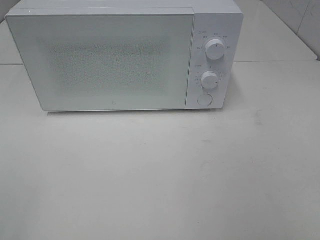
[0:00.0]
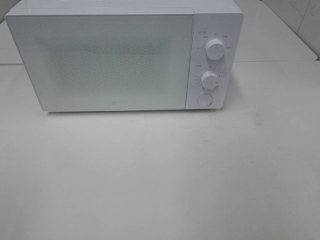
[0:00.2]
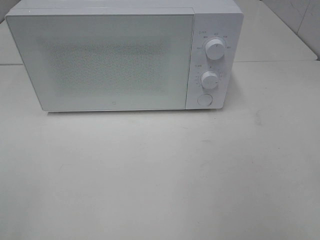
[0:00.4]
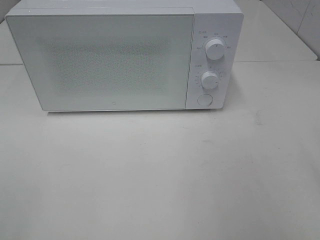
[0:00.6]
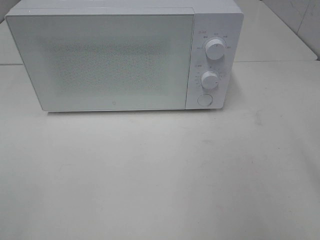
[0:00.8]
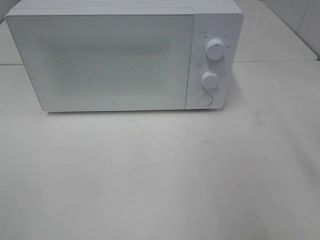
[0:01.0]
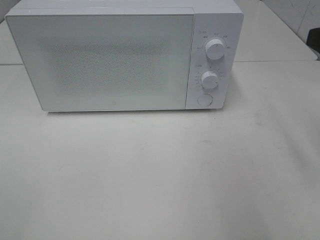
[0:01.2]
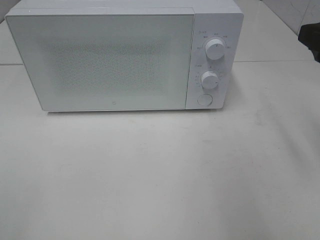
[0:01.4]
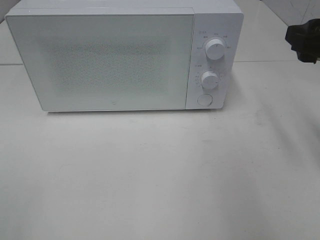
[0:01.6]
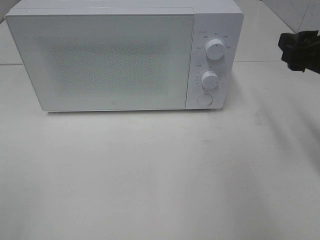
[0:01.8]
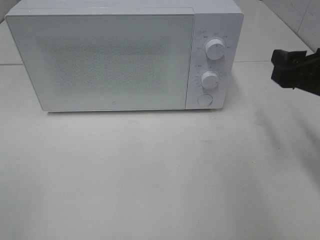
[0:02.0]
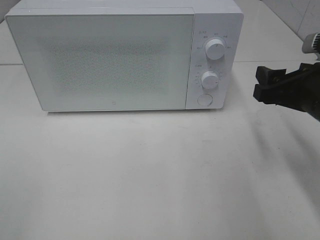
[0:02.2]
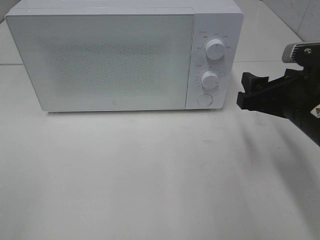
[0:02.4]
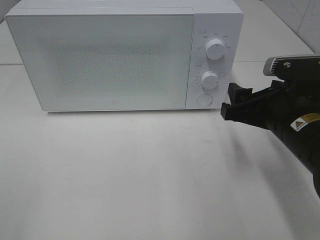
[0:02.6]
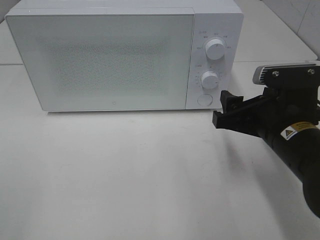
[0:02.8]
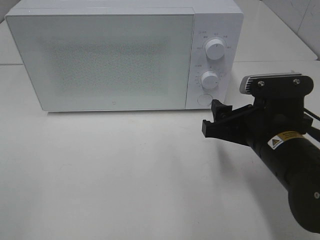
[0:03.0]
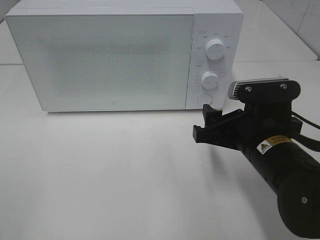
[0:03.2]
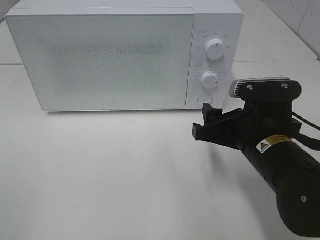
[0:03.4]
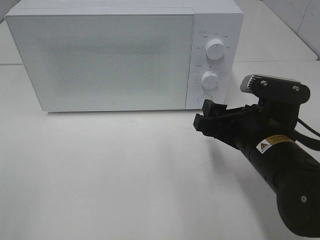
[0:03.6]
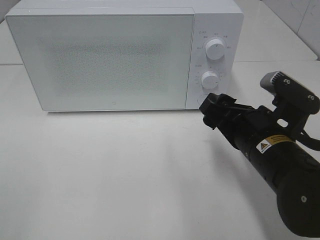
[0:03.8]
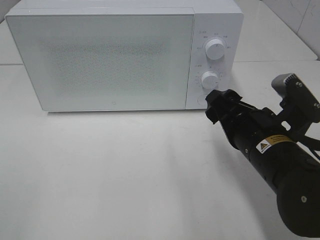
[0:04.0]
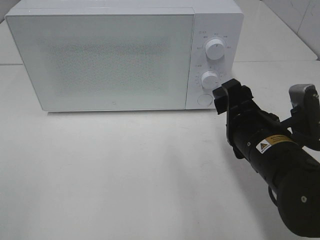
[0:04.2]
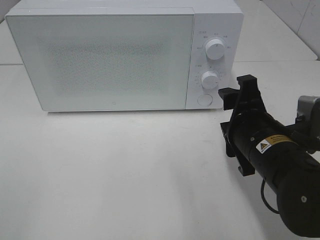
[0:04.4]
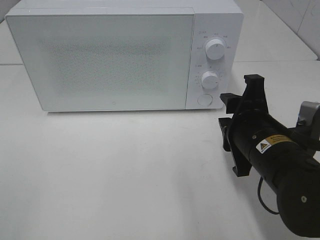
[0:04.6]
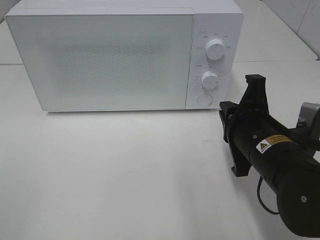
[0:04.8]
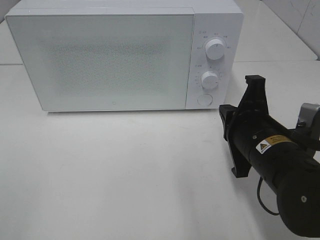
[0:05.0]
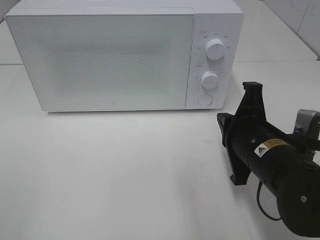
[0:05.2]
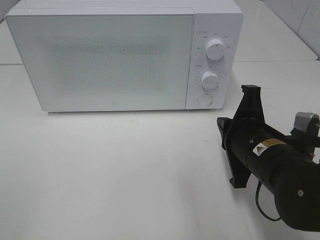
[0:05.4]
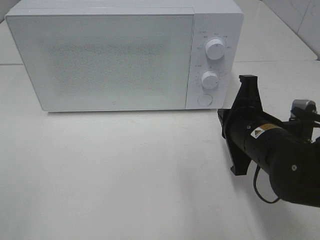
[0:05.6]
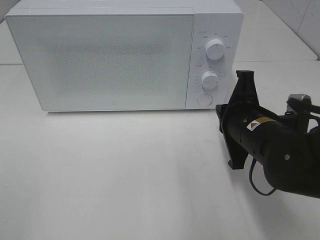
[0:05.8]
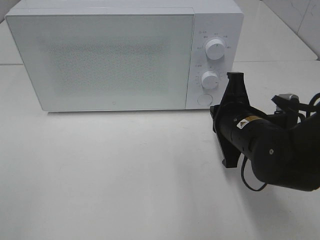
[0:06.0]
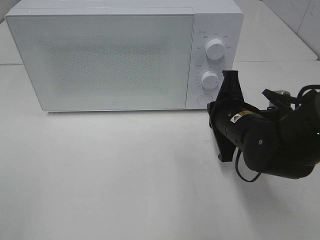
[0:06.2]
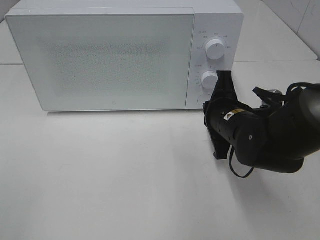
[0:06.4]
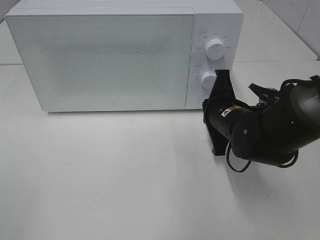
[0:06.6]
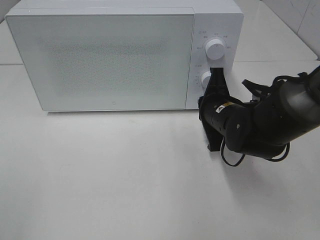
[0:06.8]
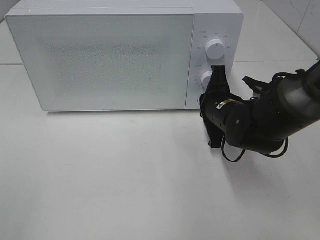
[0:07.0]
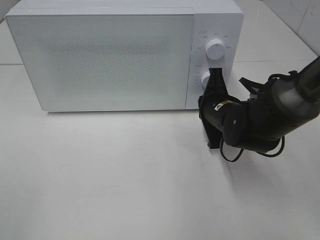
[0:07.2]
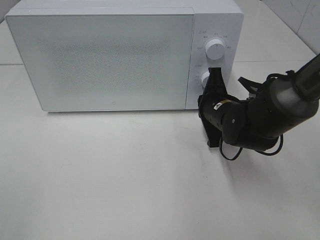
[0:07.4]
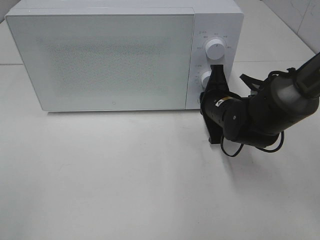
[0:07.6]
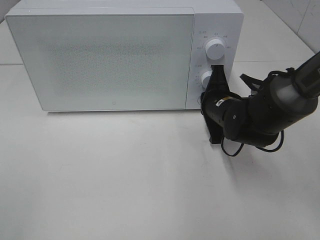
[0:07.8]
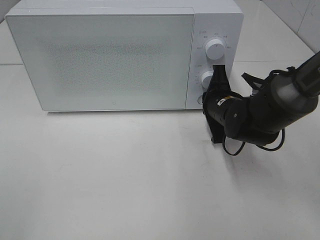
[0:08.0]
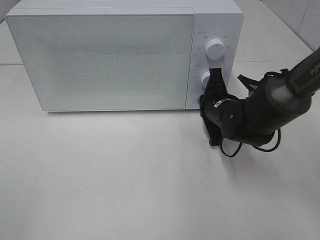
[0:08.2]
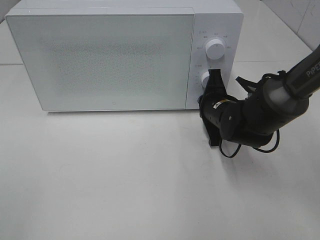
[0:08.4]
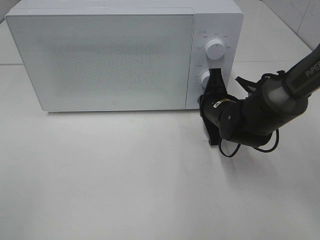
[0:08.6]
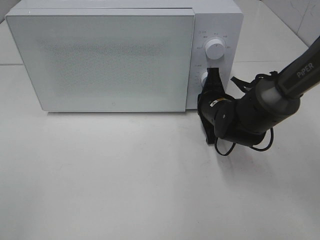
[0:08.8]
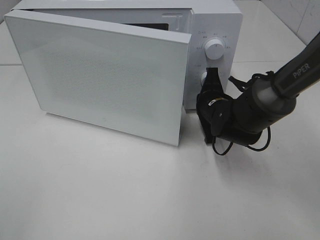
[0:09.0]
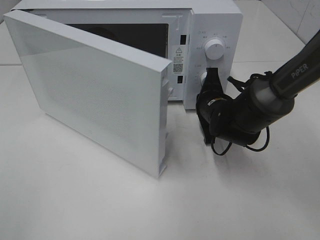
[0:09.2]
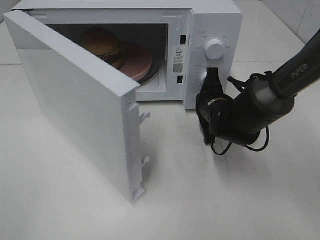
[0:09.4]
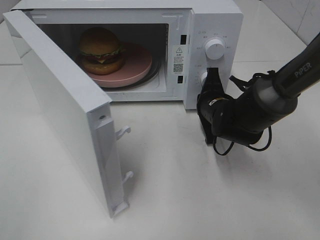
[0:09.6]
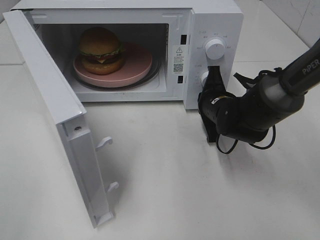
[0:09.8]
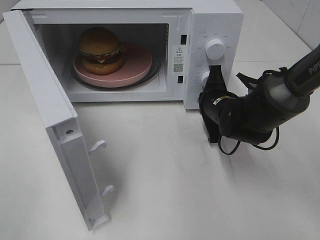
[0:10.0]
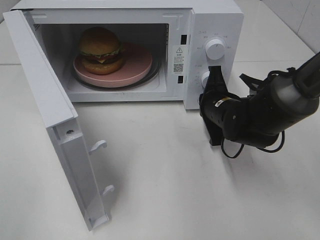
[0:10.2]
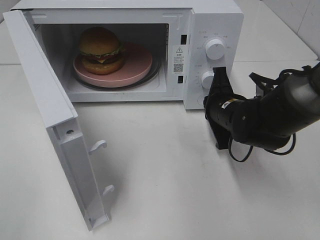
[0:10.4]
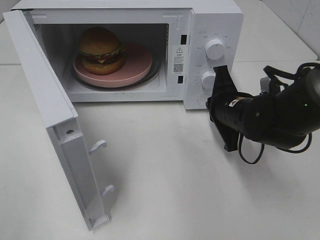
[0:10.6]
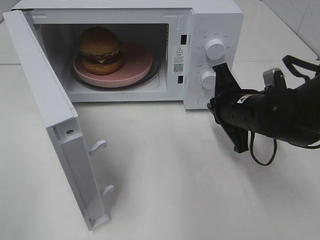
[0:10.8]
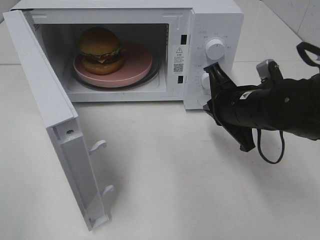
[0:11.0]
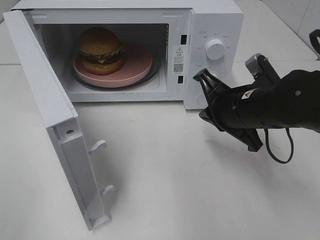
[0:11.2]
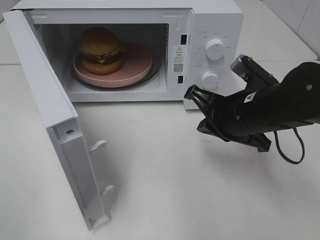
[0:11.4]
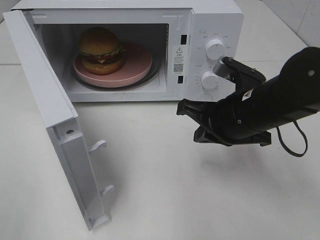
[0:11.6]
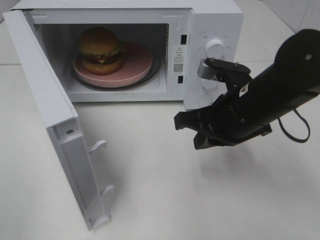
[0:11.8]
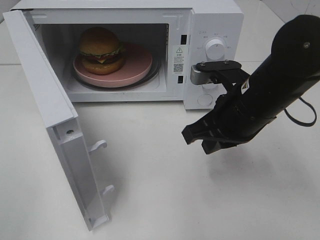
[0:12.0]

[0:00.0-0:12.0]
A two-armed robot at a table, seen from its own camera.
Task of the whole recording: Heat the burger.
Step, 0:00.0 to 0:10.6: Right hand: press the switch.
0:00.0 to 0:01.6: The right gripper is displaced forward by about 20 cm.
0:01.6 to 0:03.0: The right gripper is displaced downward and to the left by roughly 15 cm.
0:04.4 to 0:06.0: The right gripper shifts by approximately 5 cm, and closes.
0:06.0 to 0:07.6: The right gripper shifts approximately 10 cm forward.
0:07.6 to 0:09.0: The grippers make only small movements.
0:10.4 to 0:12.0: The right gripper is displaced upward and backward by some 10 cm.

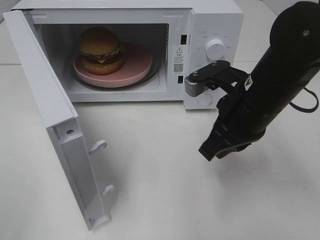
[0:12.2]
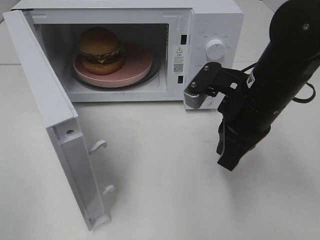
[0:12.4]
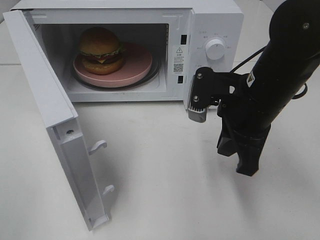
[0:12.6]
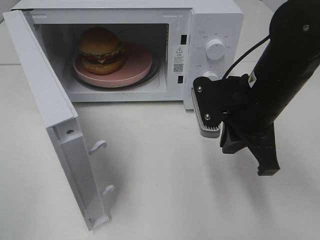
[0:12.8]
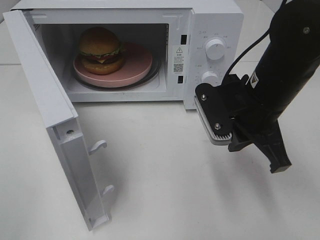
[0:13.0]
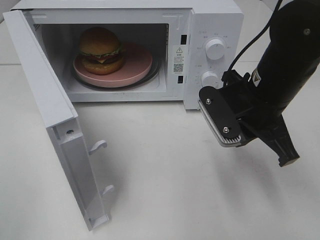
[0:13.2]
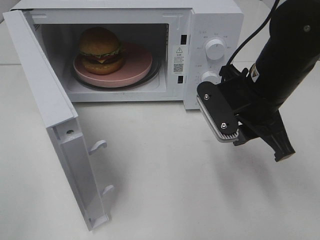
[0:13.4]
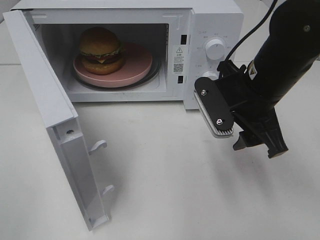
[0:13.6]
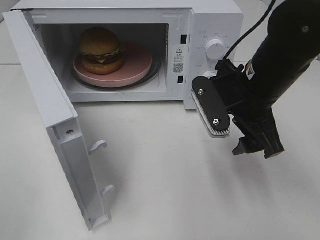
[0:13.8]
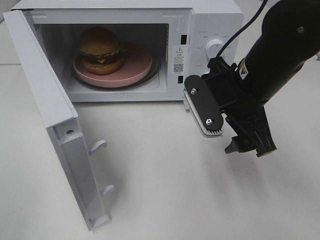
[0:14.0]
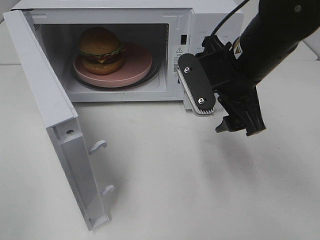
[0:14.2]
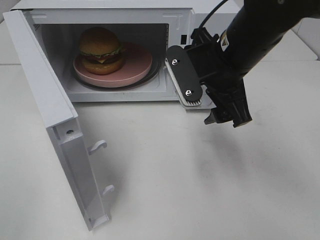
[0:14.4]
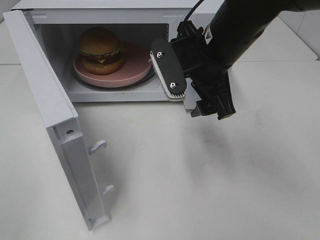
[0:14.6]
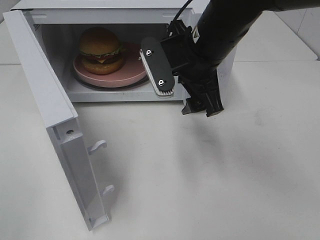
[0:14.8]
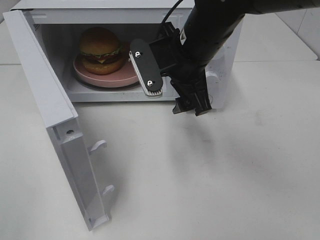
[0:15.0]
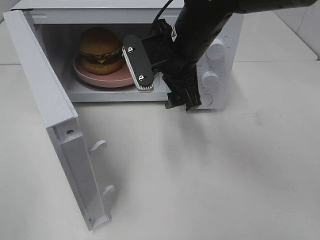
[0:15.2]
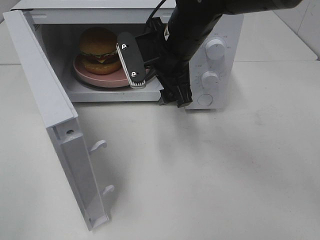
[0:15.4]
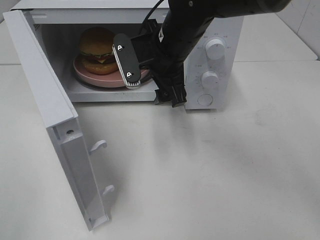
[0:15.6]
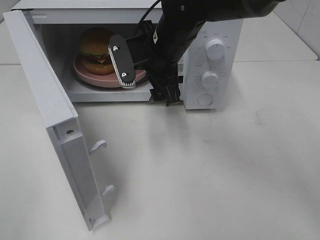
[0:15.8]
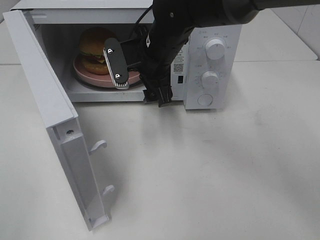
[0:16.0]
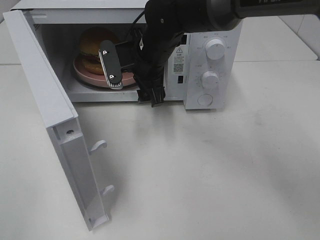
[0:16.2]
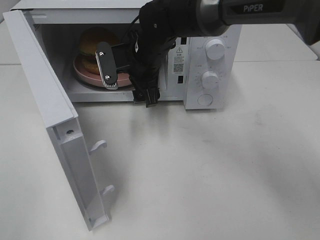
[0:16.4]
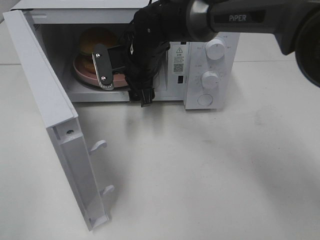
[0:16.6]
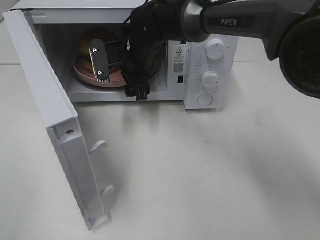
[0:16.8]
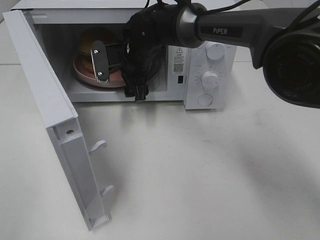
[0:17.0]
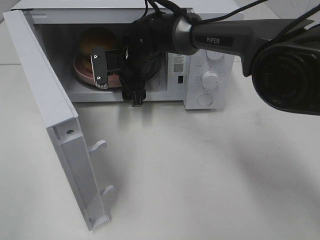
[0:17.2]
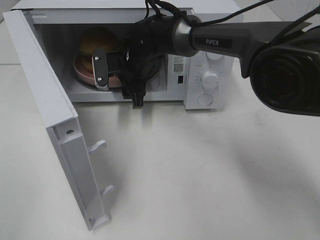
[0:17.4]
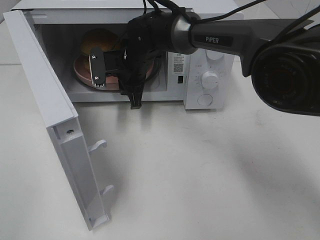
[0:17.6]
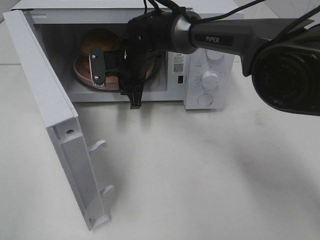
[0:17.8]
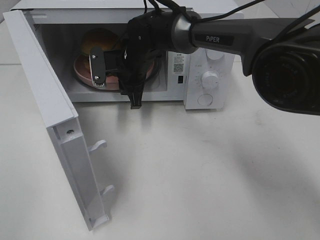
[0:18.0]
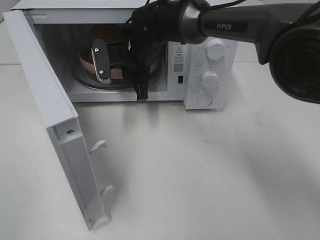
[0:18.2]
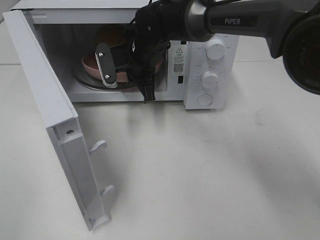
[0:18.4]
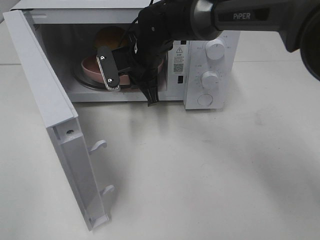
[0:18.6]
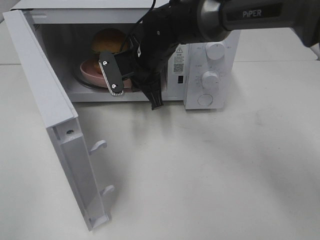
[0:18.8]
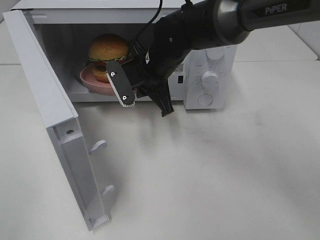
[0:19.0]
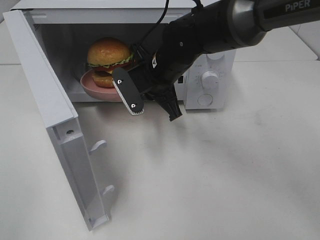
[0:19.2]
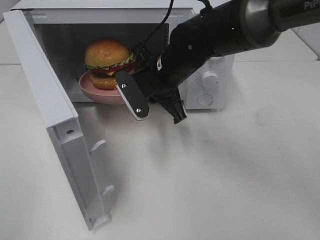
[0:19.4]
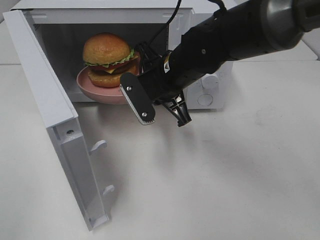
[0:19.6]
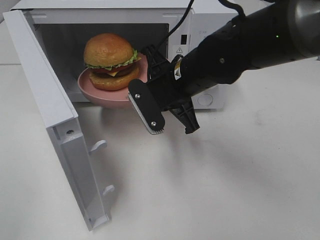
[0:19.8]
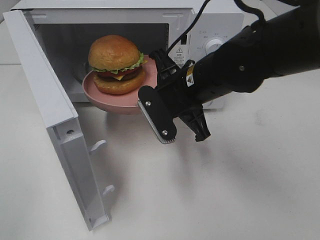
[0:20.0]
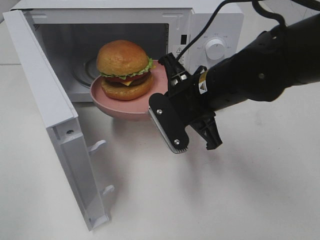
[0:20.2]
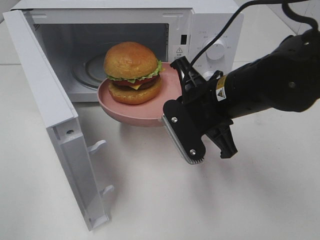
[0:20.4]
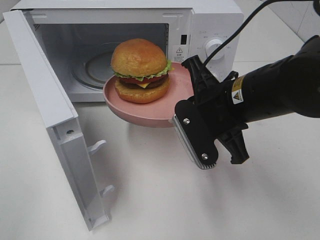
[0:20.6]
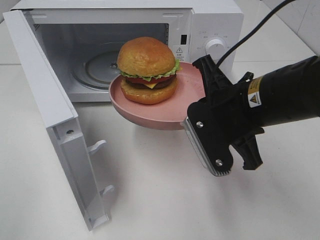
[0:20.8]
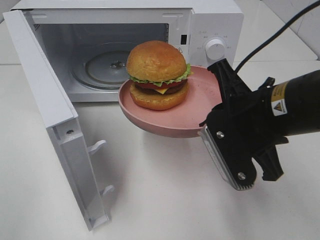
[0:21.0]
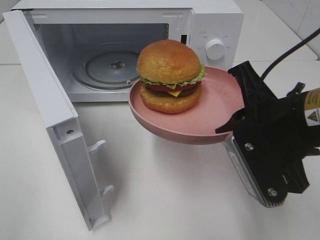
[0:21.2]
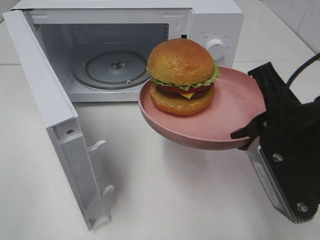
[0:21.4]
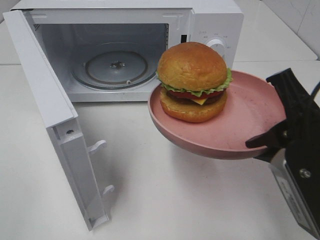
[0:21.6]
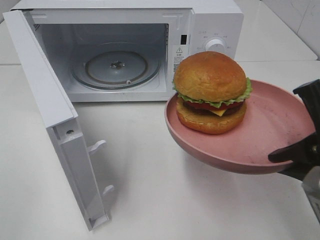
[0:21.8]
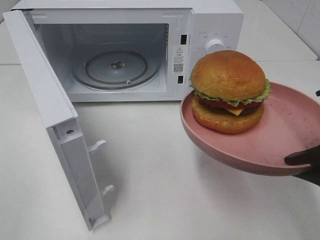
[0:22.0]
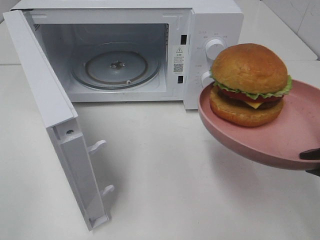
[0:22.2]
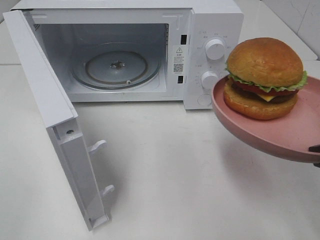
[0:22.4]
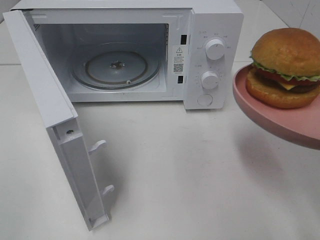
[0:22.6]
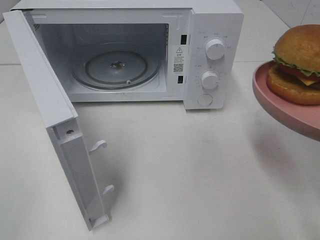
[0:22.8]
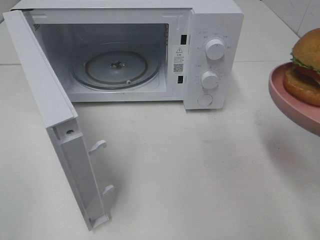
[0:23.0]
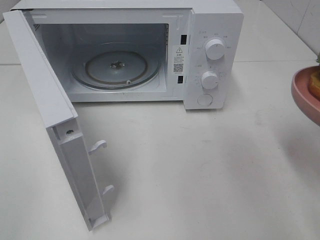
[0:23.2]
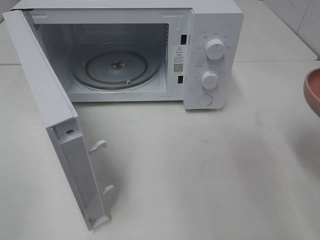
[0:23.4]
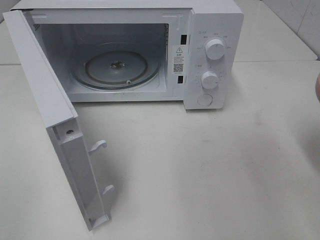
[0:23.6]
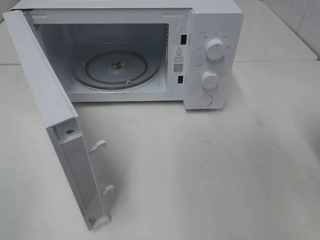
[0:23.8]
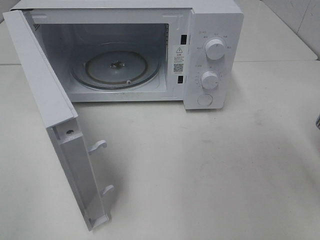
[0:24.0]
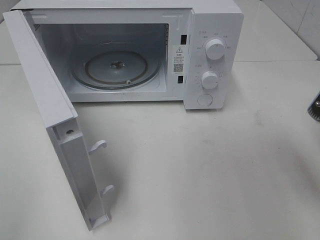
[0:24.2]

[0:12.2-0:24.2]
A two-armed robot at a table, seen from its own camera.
Task of the whole recording: Heat the burger.
Step, 0:12.2 to 0:18.2: Right hand: grab the plate with the hamburger.
0:12.2 to 0:13.8: The right gripper opens up.
0:13.8 to 0:15.2: The right gripper is displaced to the left and forward by some 10 cm.
0:15.2 to 0:16.6: The right gripper moves forward, to the left and downward, about 10 cm.
0:16.6 to 0:18.2: The right gripper closes.
0:18.2 to 0:19.8: The right gripper shifts roughly 15 cm backward and to the right.
0:19.8 to 0:21.2: The right gripper is displaced backward and to the right by approximately 15 cm.
0:21.2 to 0:22.6: The right gripper travels to the right and backward by some 10 cm.
0:22.6 to 0:24.2: The right gripper moves forward, some 5 cm.
